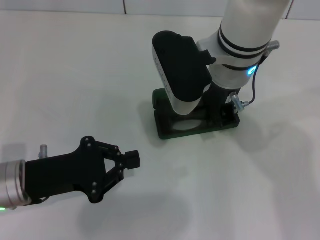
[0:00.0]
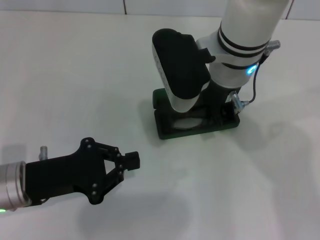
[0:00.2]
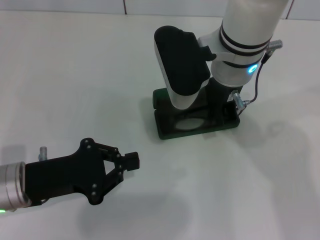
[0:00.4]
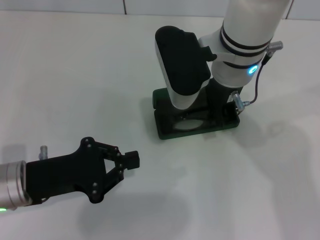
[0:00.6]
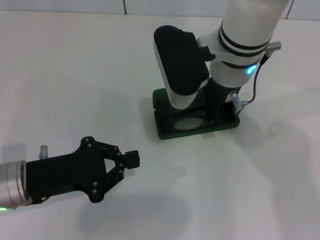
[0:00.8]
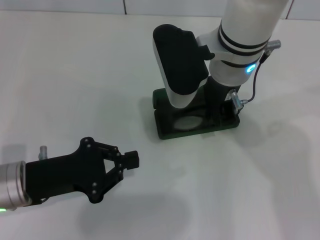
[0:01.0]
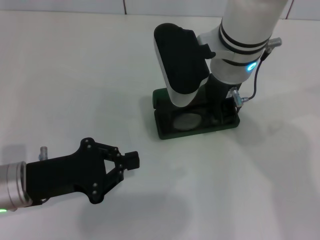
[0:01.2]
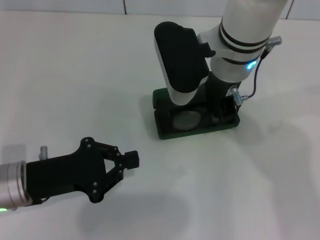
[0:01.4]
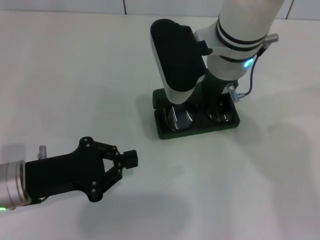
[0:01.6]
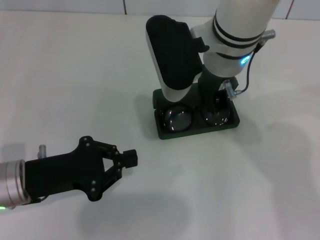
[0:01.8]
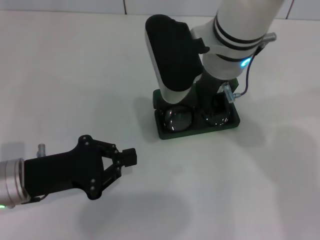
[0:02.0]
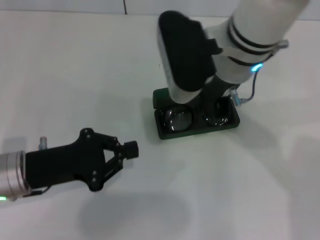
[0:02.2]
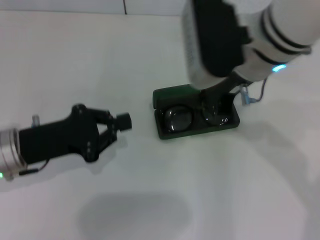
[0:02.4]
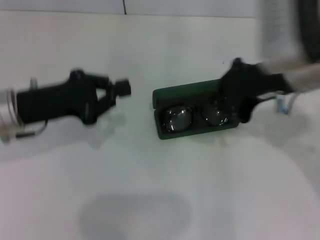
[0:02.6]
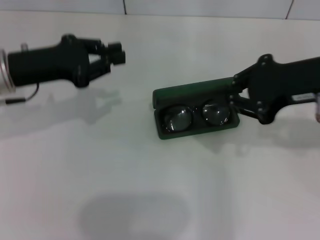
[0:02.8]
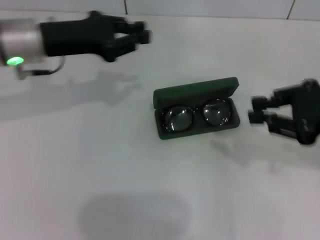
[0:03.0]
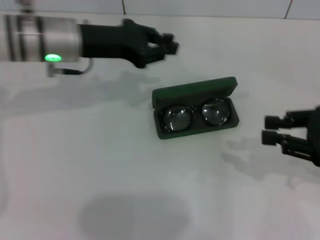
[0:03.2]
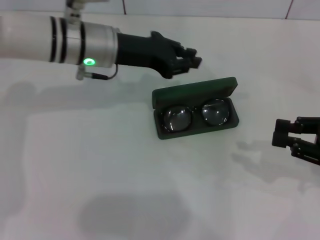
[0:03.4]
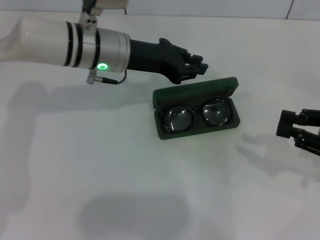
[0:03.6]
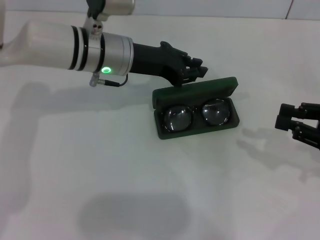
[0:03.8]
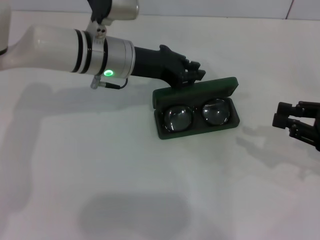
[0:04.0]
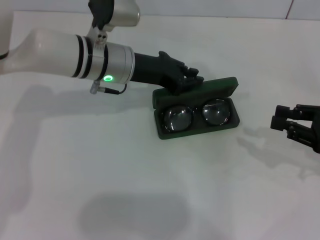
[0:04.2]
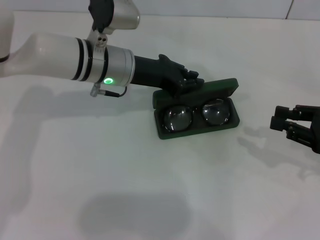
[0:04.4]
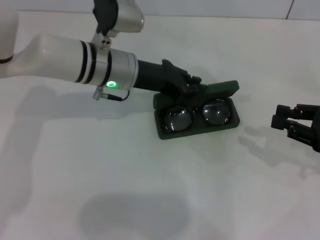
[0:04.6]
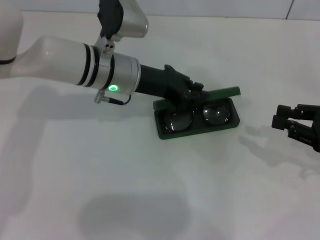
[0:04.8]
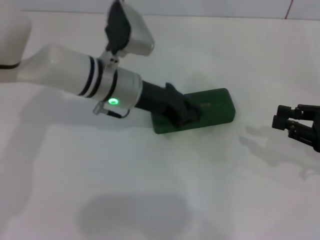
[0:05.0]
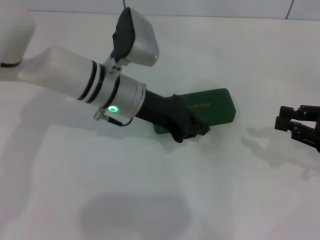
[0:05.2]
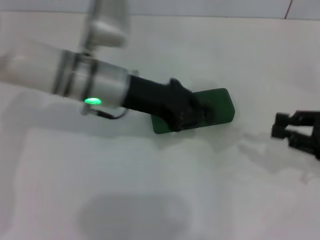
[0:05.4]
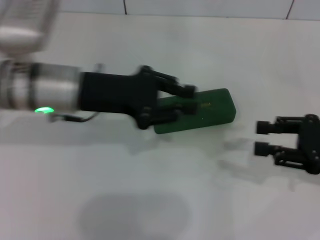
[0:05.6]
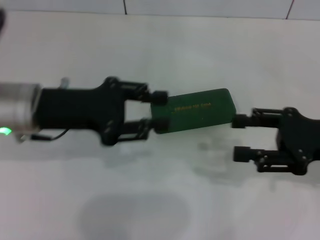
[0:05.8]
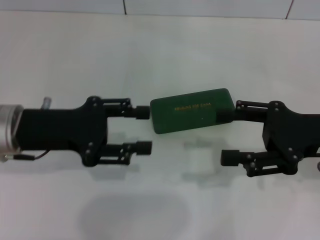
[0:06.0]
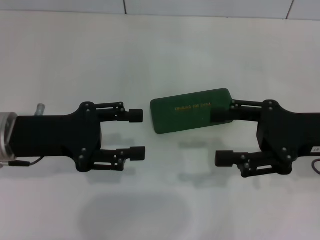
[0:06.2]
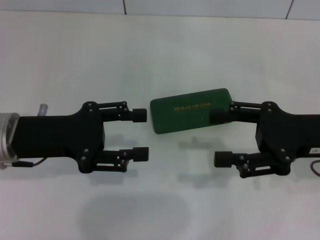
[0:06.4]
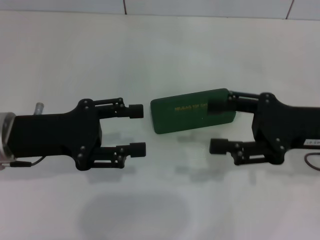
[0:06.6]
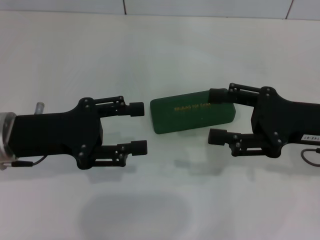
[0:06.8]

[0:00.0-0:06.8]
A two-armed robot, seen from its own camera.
Step, 0:01.8 to 0:04.8: Close the glasses case with your left hand.
0:00.0 to 0:01.4: Both grippers stay put.
0:01.4 to 0:02.8: The right gripper shifts some 15 cm to the right and backward. Meanwhile the left gripper goes roughly 15 cm forward and upward.
0:02.8 to 0:04.0: The left gripper moves to the right and forward, about 15 cm. The right gripper is displaced downward and to the right by about 15 cm.
0:04.0 to 0:05.4: The left gripper travels backward by approximately 5 cm.
0:05.4 to 0:06.8: The left gripper shifts about 15 cm to the left and backward, and opens. The right gripper is displaced to the left by some 10 cm, and opens its fingers.
